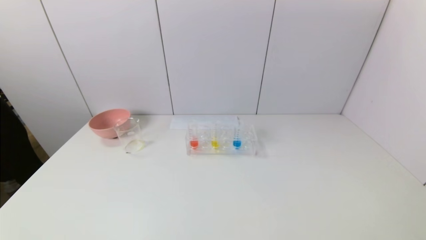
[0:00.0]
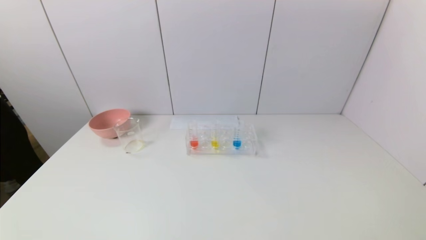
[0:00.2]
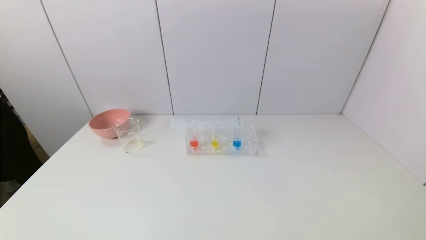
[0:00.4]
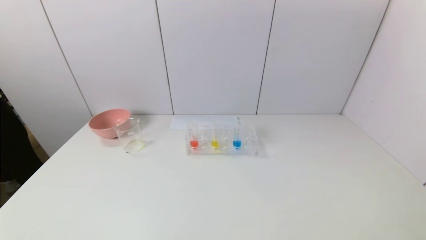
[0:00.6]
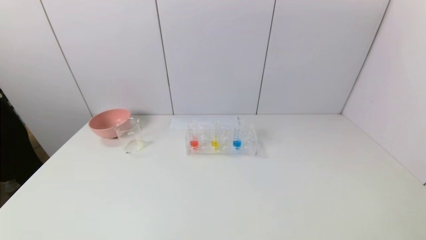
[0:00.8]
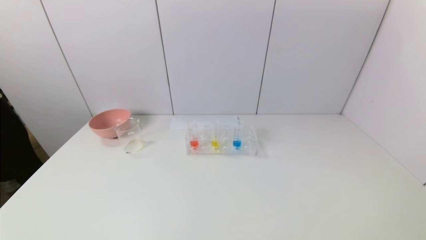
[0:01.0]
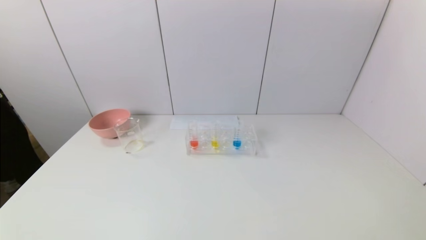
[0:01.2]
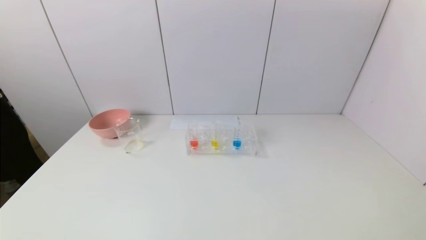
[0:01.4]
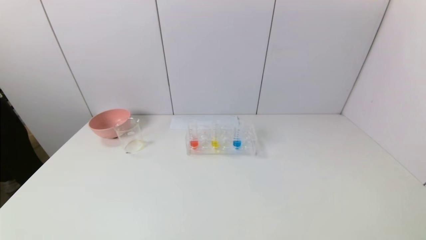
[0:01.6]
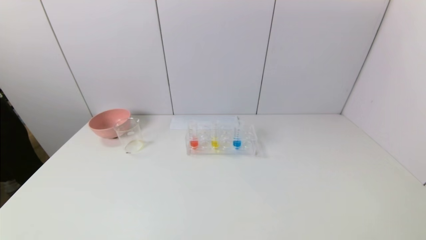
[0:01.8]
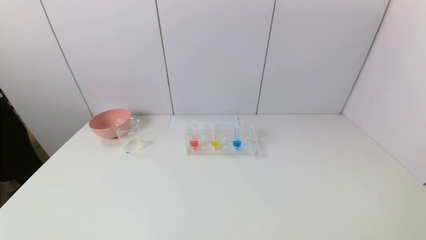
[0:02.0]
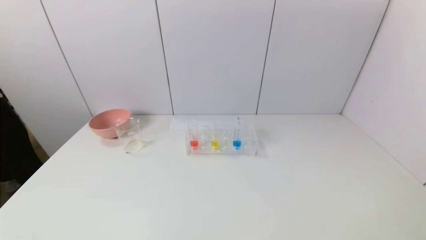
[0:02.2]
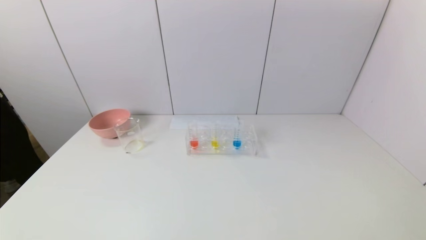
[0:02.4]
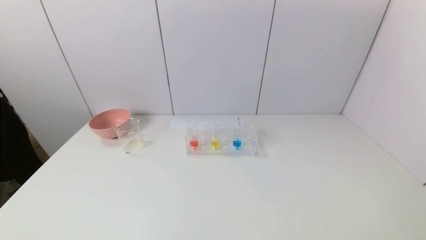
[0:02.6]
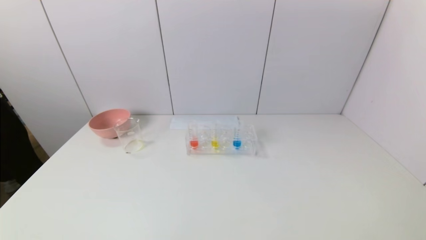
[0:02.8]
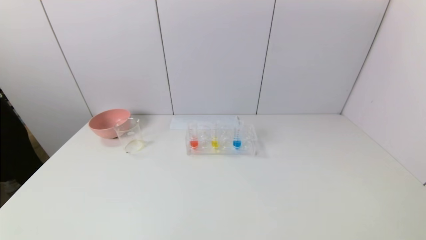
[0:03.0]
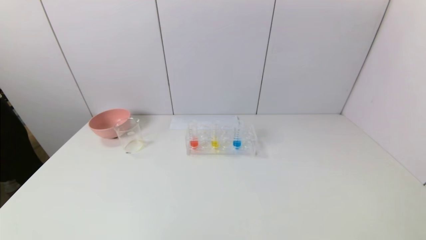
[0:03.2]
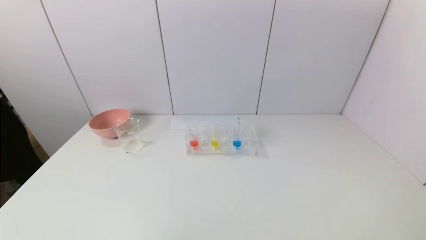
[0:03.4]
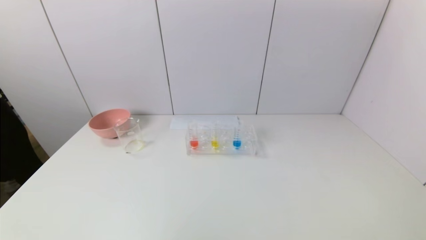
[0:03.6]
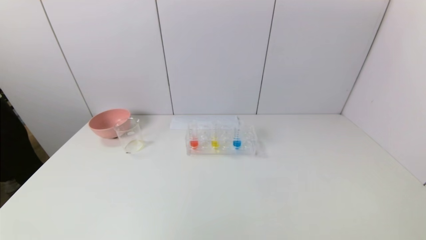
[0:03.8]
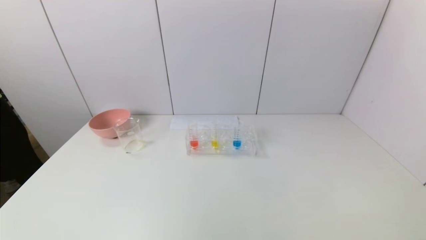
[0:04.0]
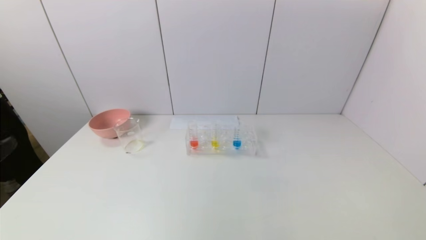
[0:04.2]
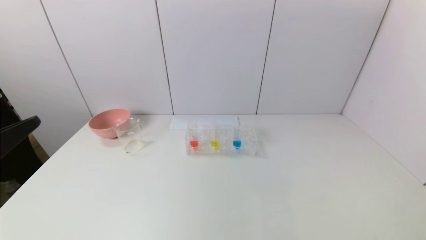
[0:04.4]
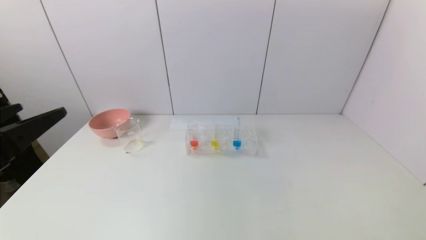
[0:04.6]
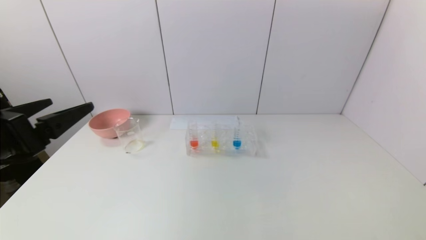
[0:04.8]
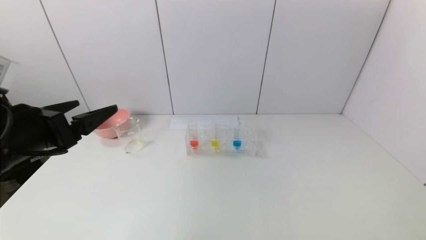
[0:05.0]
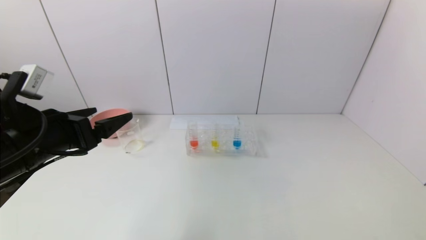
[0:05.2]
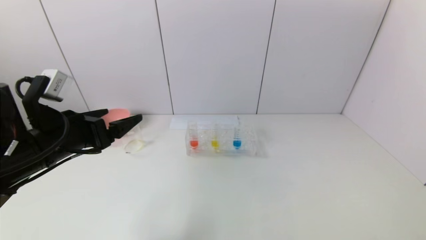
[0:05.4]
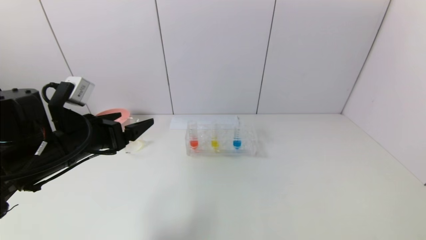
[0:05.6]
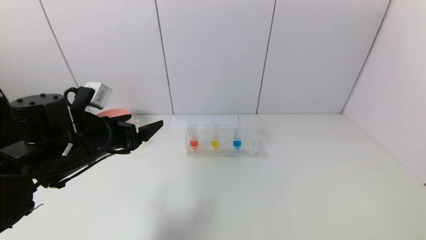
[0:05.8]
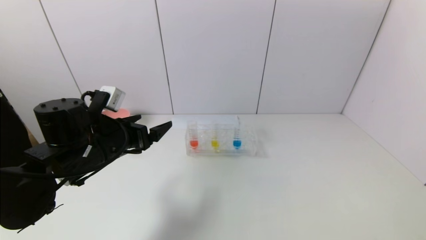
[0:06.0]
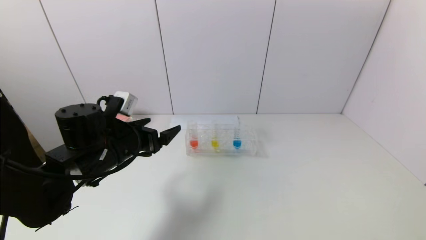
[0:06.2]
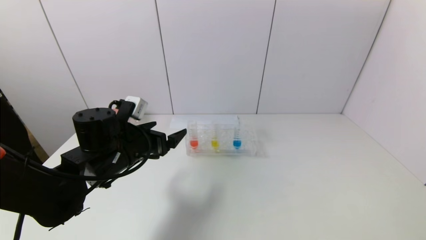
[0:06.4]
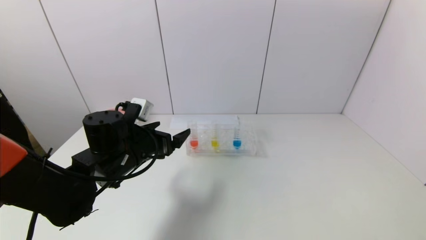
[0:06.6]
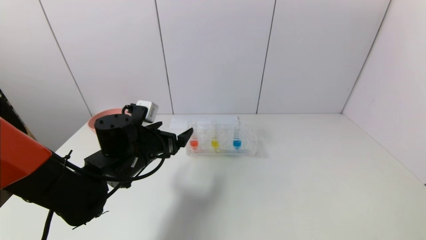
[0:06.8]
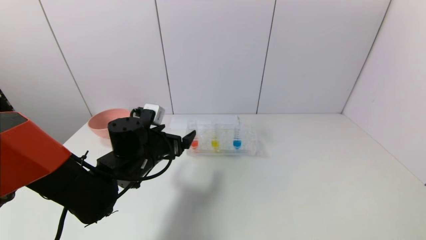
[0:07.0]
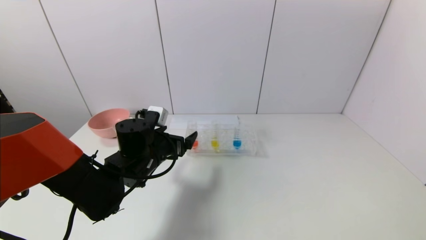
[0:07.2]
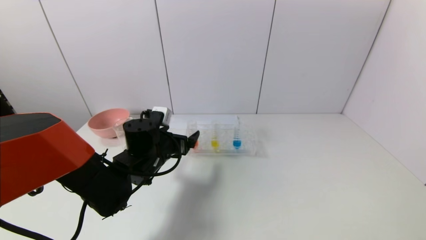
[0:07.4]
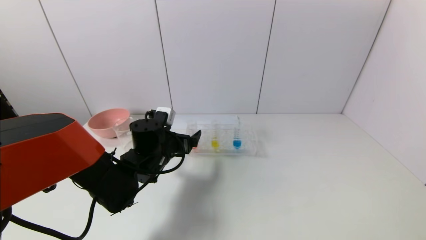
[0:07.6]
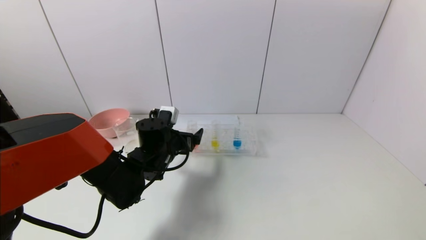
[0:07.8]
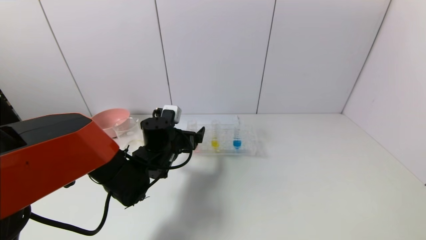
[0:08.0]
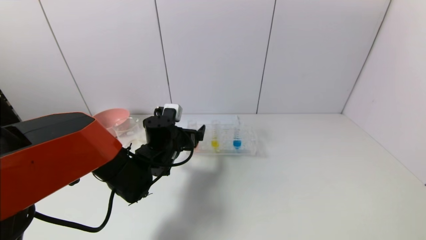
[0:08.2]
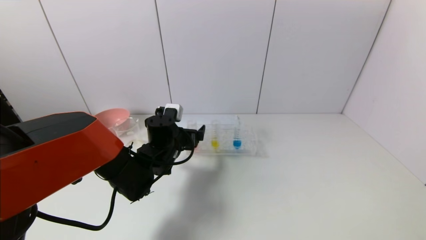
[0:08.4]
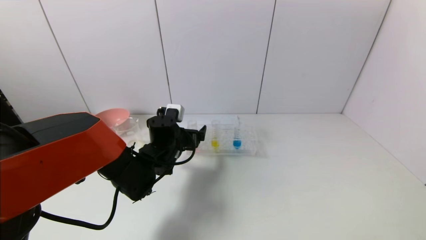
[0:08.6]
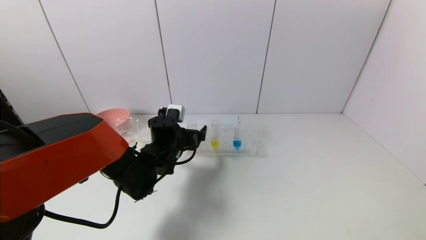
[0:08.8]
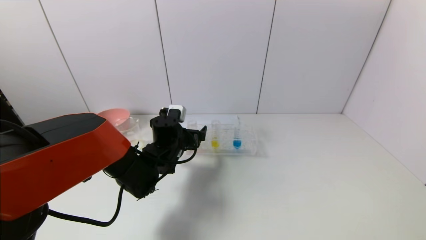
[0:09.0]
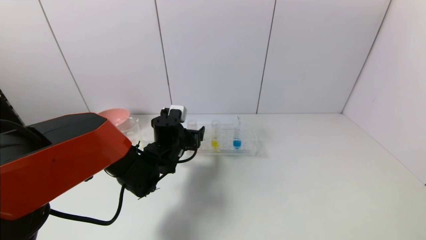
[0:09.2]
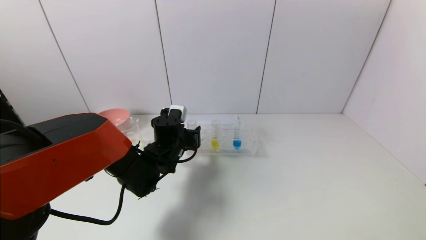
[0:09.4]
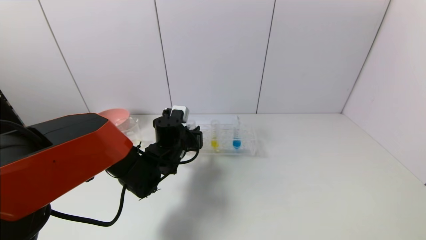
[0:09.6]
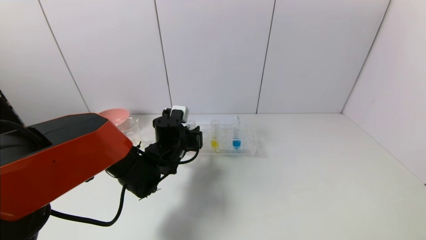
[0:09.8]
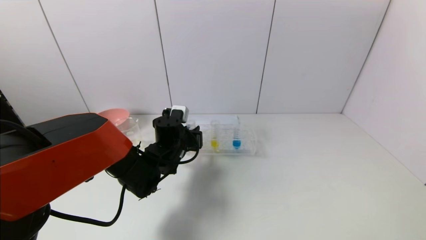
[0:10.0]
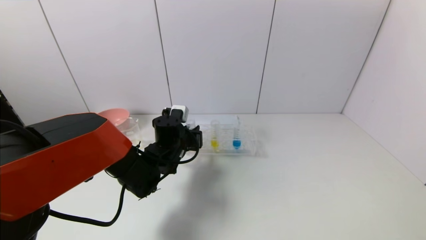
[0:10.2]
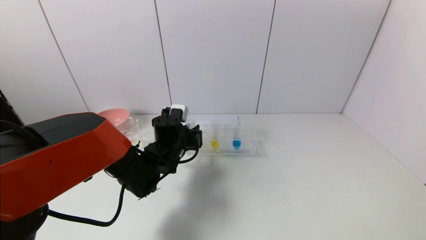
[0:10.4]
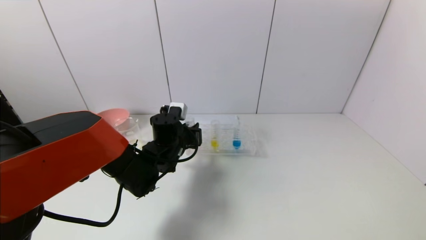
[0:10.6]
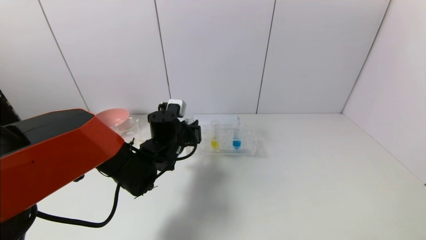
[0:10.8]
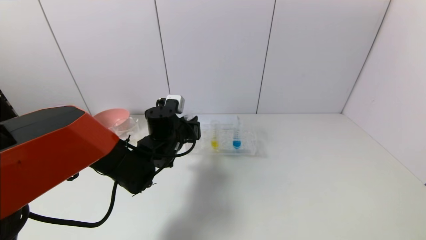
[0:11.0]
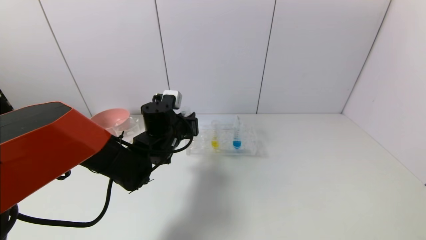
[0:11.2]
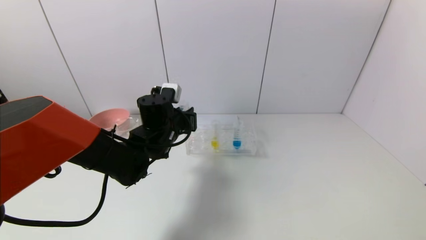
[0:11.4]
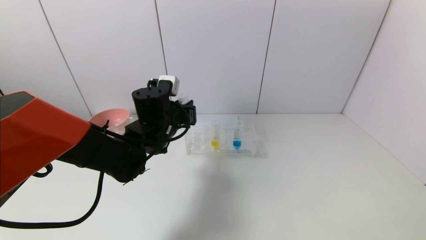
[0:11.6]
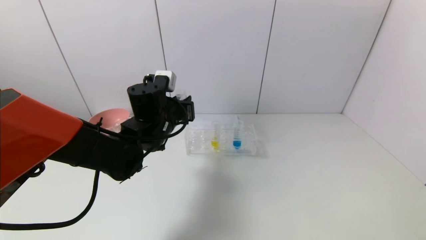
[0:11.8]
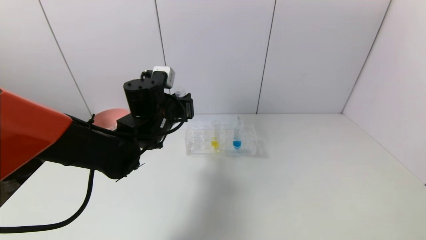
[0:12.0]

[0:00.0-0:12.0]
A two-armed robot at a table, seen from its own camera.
Task of the whole recording: pick up the test tube with yellow pigment and the test tube with red pigment by grippers and pour them into the beaker.
Step, 0.0 to 9.8 s: Grasp the red reagent with the left gripper.
0.0 to 1.6 s: Both grippers stay put.
4.4 to 6.0 s: The left gripper is displaced forward, to the right and downward by approximately 20 cm.
6.0 to 7.6 s: The left gripper moves to the right, downward and forward, some 15 cm.
7.6 to 9.0 s: The grippers make only small movements.
9.0 to 10.4 s: The left gripper closes its fingers.
10.4 to 12.0 s: The left gripper heads upward, covering roughly 10 cm.

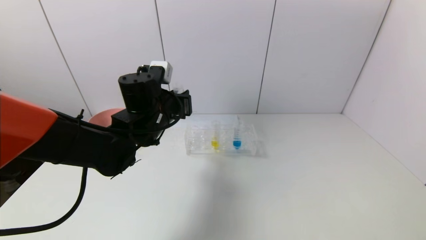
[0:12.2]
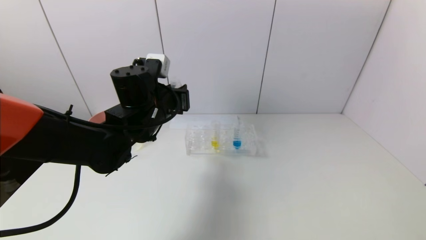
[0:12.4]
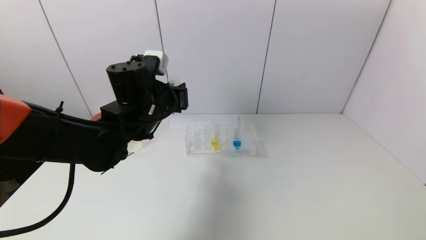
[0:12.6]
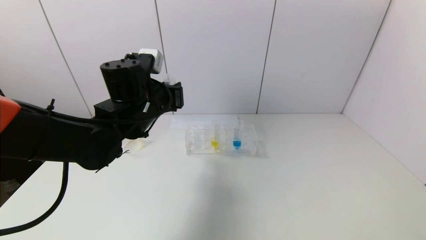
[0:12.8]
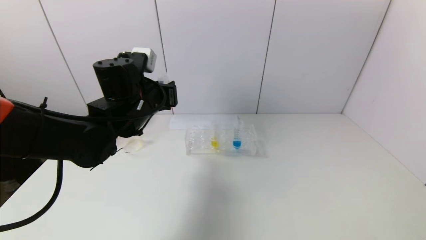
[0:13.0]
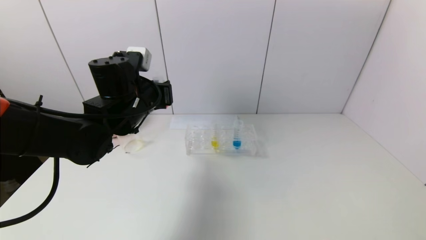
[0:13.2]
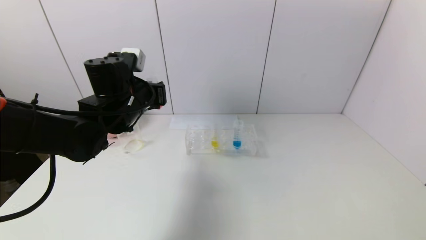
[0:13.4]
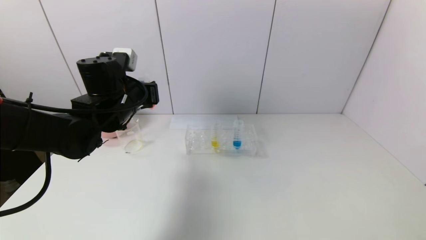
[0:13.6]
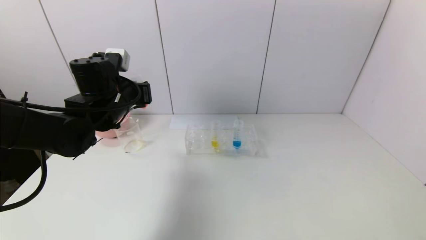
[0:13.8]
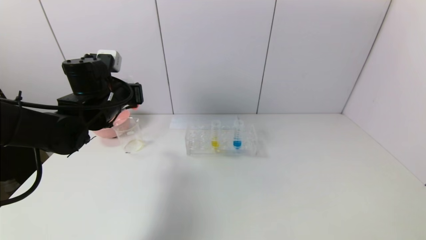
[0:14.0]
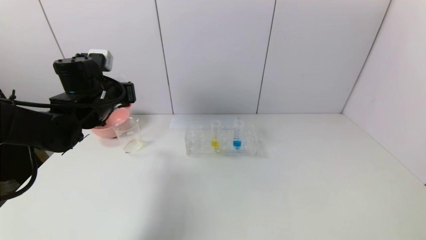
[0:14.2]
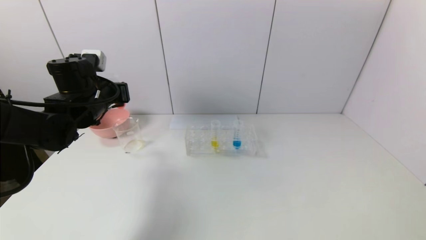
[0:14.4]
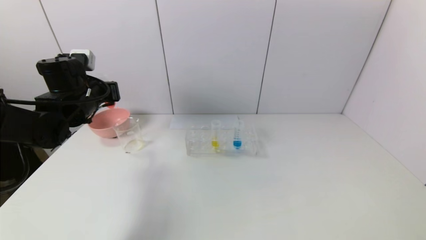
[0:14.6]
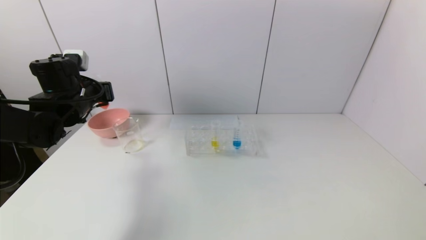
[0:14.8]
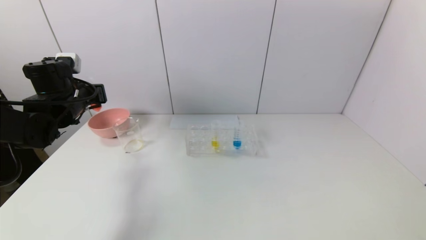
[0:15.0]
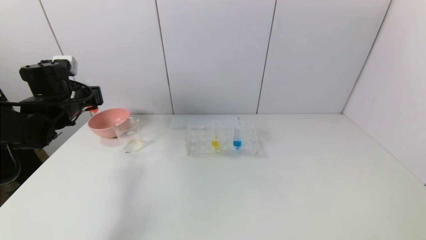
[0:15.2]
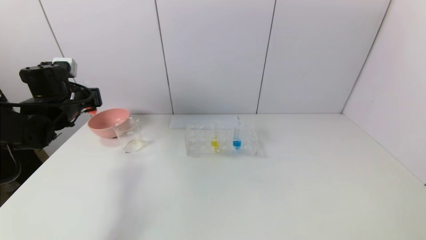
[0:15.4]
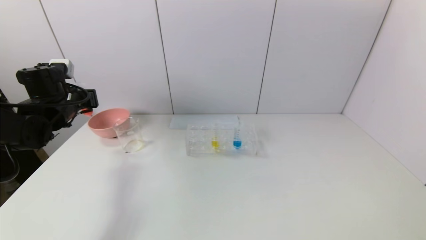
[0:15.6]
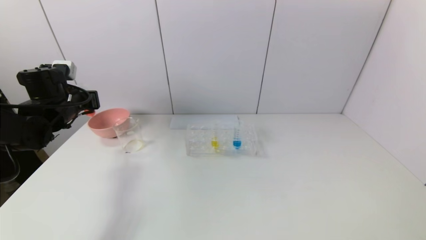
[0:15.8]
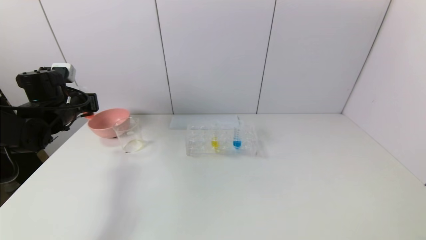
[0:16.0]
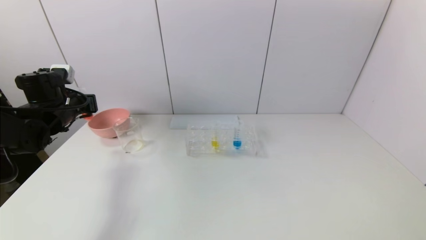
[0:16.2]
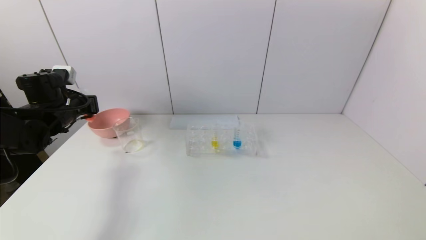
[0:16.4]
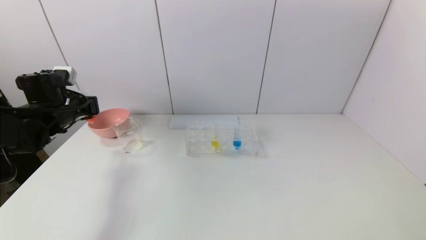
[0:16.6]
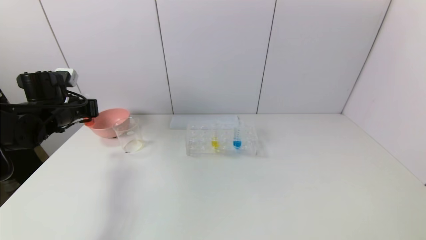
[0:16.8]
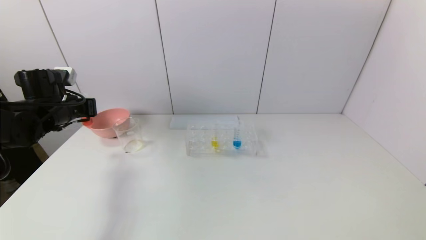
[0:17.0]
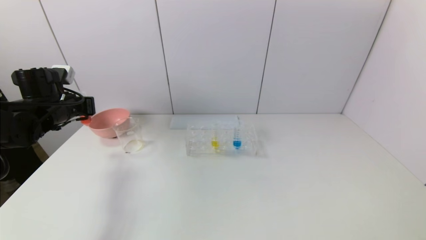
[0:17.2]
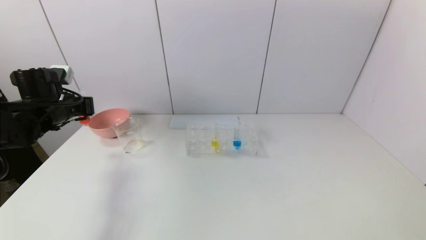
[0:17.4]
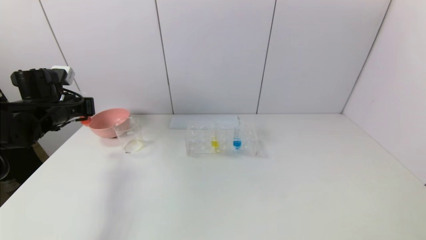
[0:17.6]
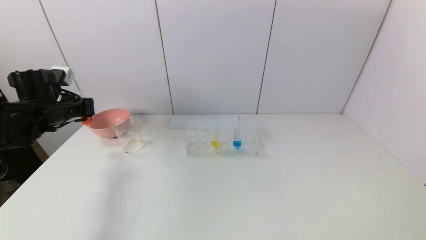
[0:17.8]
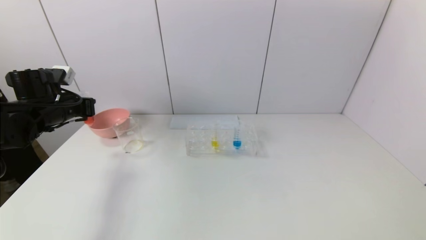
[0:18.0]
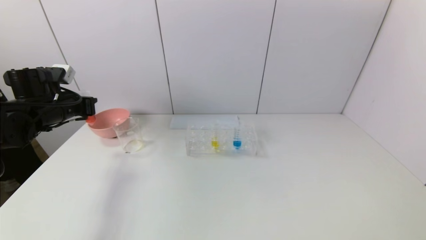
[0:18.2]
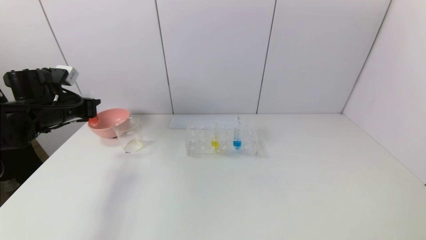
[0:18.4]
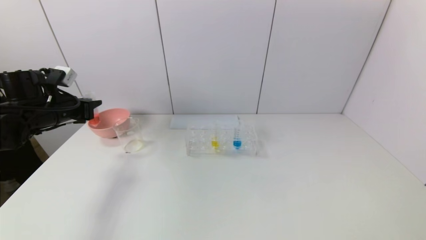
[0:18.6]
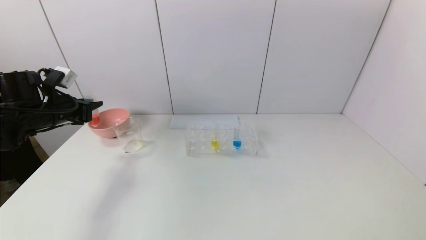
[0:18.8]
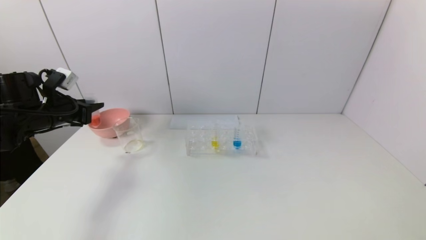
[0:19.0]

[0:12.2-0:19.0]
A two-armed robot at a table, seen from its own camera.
Task of the whole recording: pick up the test tube with yellow pigment and the test tube with red pigment by grippers and pour them into the beaker.
12.2 to 13.6 s: The left gripper moves to the left, approximately 5 cm.
13.6 to 15.0 s: The left gripper goes roughly 10 cm to the left.
15.0 to 17.6 s: The grippers move only a little.
